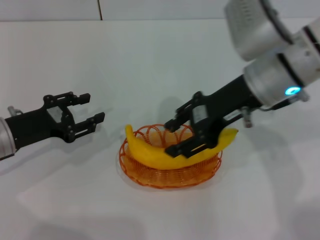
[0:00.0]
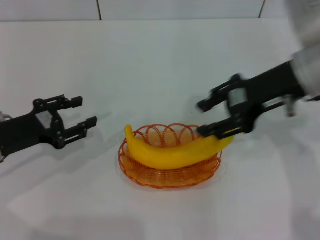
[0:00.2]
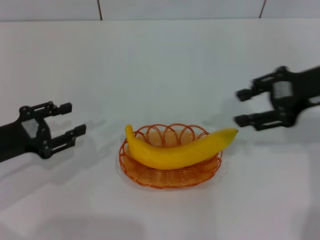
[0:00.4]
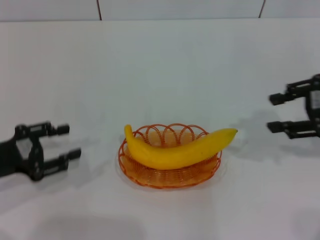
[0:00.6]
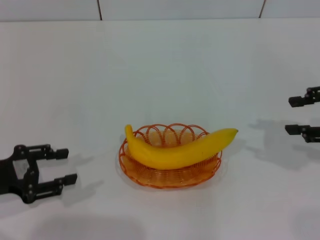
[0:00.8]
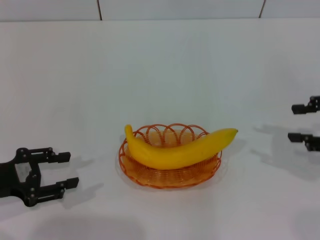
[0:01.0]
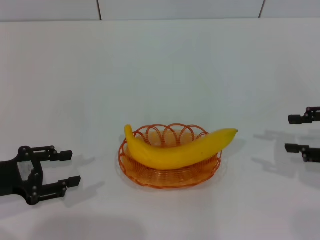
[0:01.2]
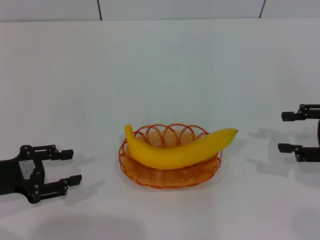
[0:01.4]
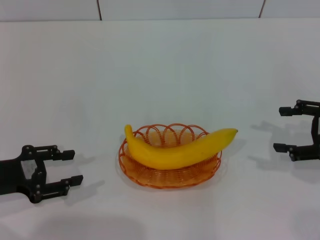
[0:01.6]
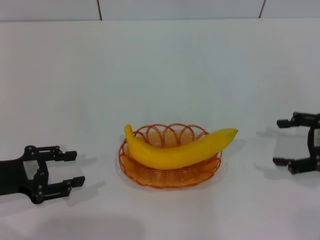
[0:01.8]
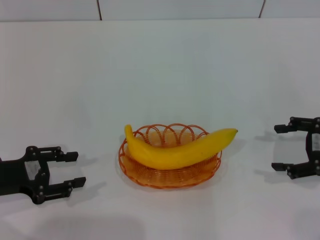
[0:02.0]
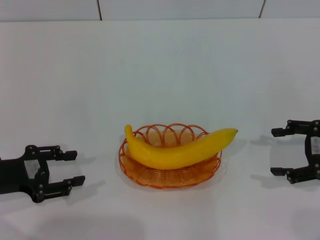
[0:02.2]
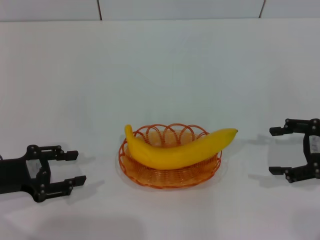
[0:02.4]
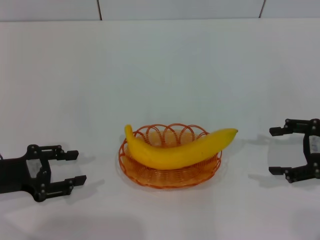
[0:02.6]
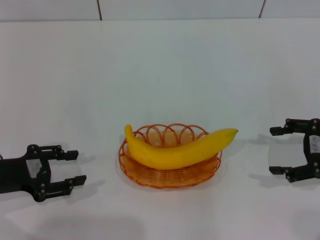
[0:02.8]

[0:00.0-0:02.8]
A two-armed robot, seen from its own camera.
0:00.0 to 0:01.4: The left gripper shifts some 5 cm backward. Meanwhile the right gripper goes roughly 20 cm to the right.
0:01.4 to 0:02.8: The right gripper opens its fingers.
